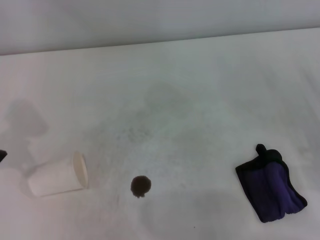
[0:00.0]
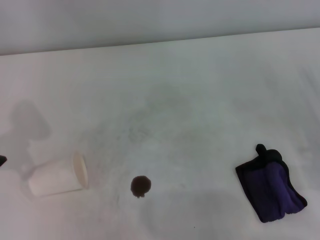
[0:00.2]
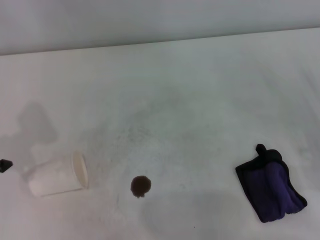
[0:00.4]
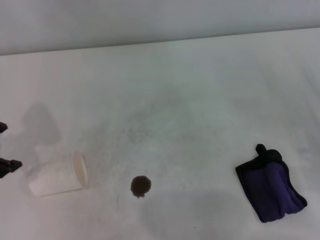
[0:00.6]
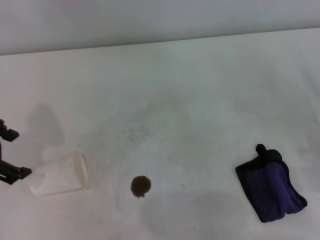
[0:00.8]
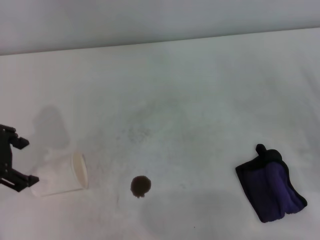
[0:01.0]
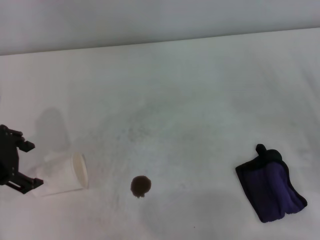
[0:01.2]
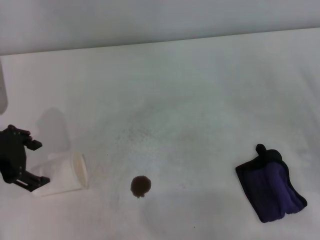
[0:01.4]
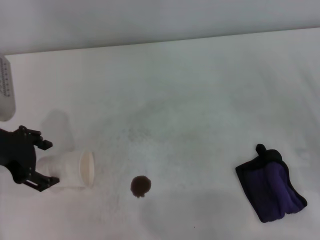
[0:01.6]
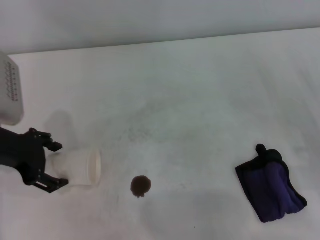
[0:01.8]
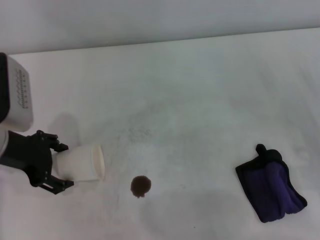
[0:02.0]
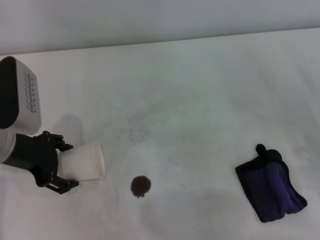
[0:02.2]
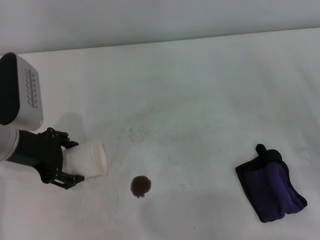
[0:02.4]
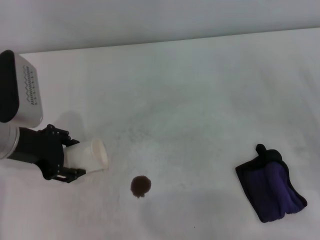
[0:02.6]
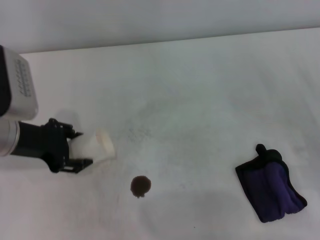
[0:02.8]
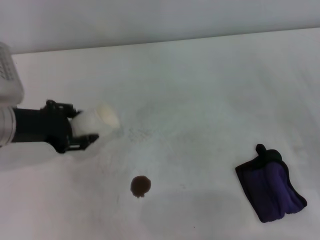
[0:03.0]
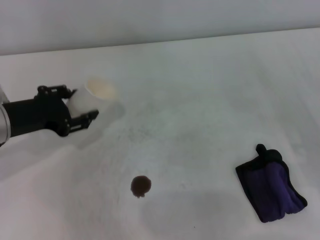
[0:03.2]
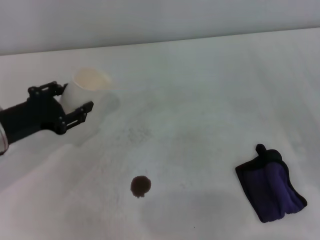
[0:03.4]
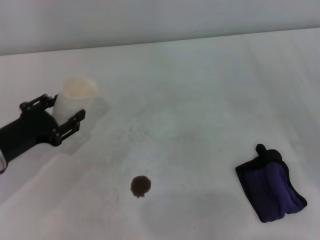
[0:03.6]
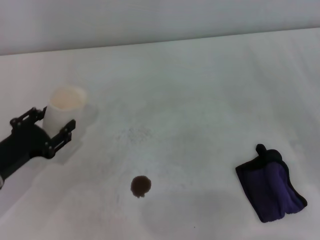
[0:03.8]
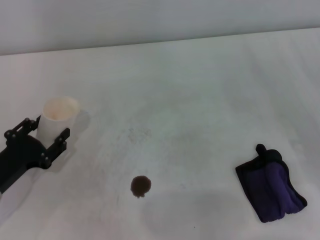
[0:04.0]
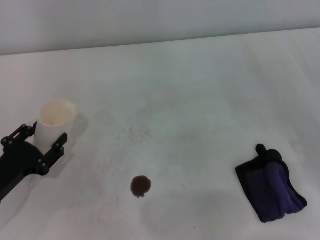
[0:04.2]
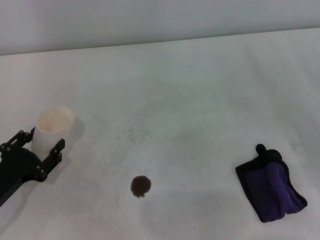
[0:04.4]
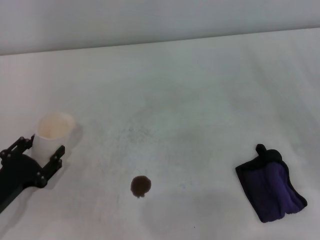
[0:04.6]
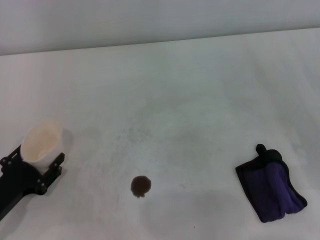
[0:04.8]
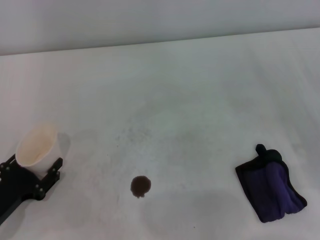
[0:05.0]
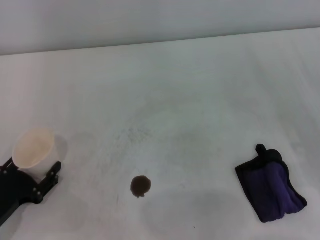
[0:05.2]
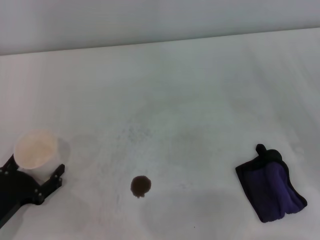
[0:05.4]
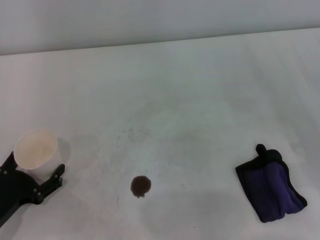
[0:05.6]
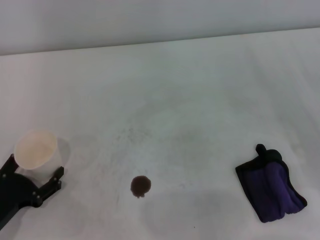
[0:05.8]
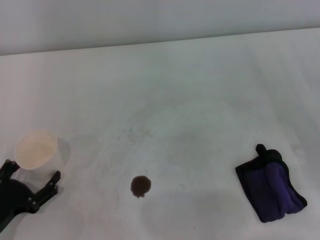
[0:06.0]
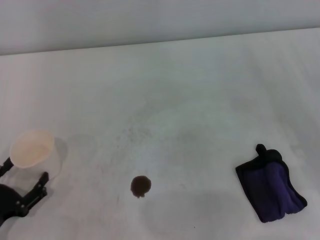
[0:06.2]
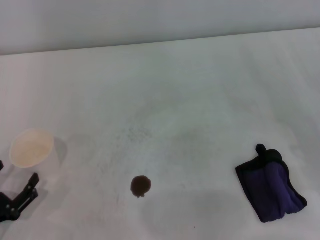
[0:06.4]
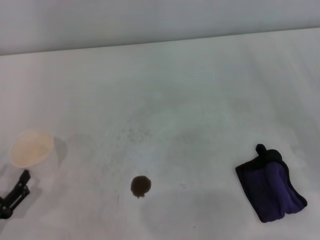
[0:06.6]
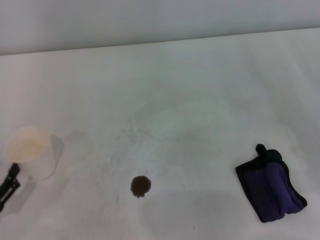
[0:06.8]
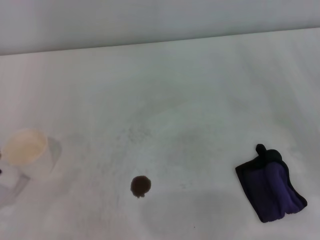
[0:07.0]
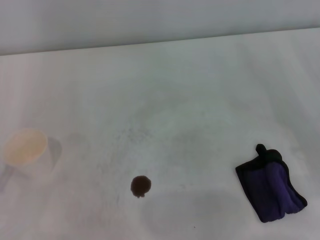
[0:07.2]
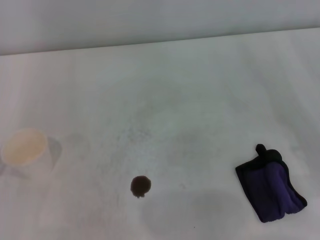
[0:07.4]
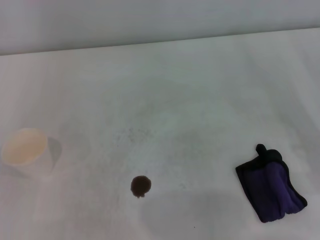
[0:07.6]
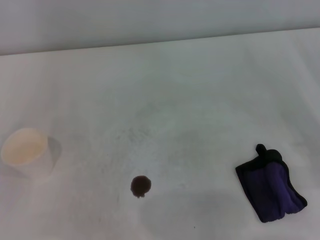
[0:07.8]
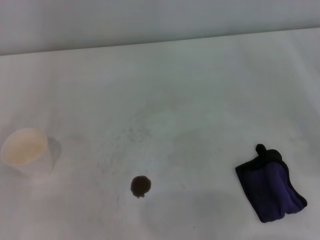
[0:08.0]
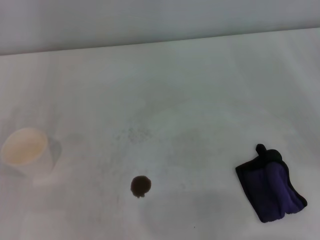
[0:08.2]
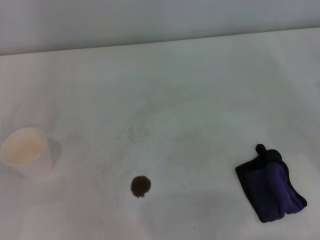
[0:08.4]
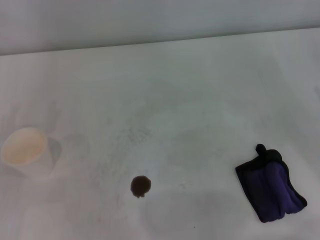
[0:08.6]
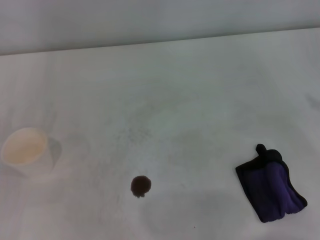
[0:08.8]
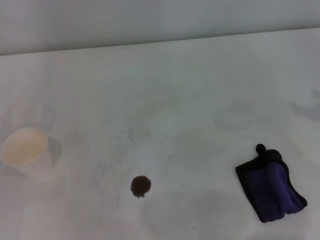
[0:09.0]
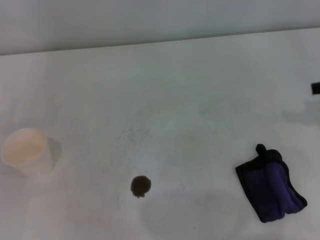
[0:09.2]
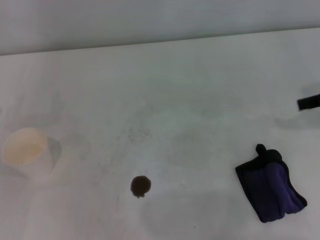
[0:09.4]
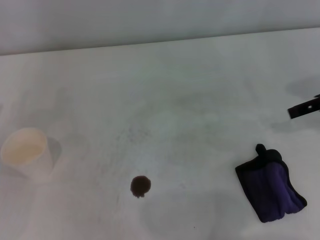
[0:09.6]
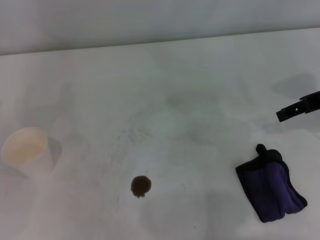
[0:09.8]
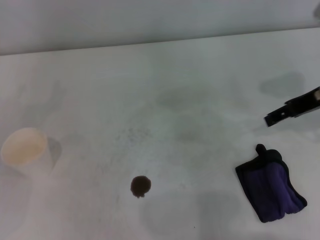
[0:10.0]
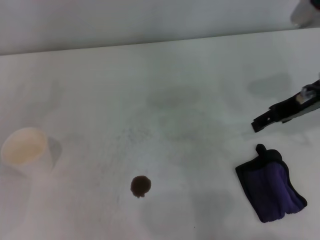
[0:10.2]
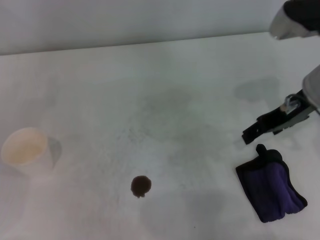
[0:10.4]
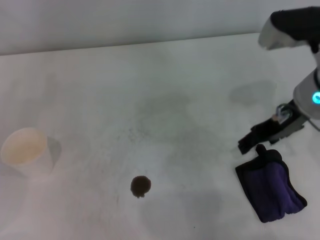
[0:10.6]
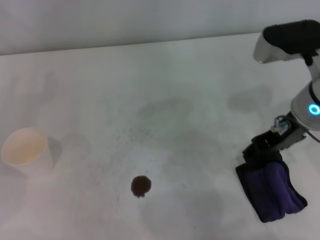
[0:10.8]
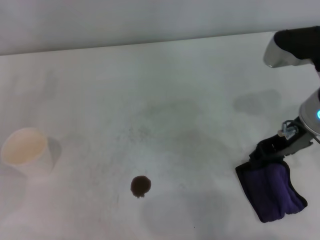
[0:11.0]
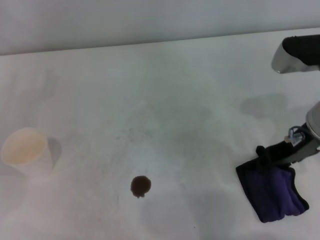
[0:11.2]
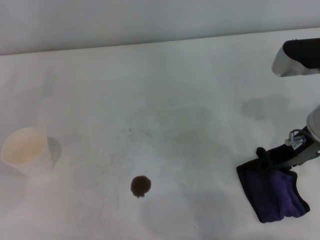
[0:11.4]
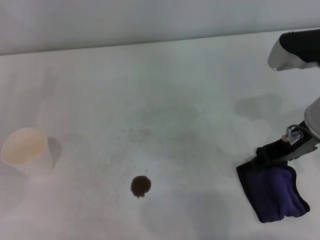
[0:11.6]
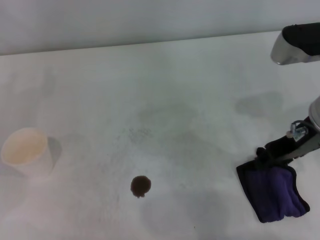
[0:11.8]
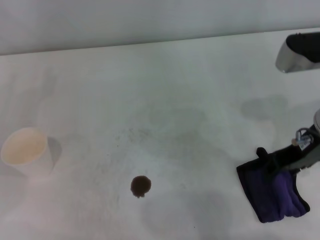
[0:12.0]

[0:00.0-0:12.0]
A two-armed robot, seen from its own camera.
Step, 0:00.0 to 0:02.4: Grasp the paper cup with the left gripper.
Step, 0:02.8 to 0:05.8: Stand the paper cup upright with the left gripper.
Step, 0:06.0 to 0:11.2: Grasp the rag with the right gripper.
0:00.0 to 0:01.6: The left gripper goes some 10 cm downward.
0:01.6 to 0:03.0: The left gripper closes.
0:03.0 to 0:04.4: The left gripper shifts some 15 cm downward and backward.
0:04.4 to 0:06.0: The left gripper moves roughly 5 cm, and opens up.
0:06.0 to 0:07.6: The left gripper is displaced upward and to the left by about 10 cm.
0:09.0 to 0:10.4: The right gripper shifts some 15 cm to the left.
0:10.4 to 0:12.0: There are only small adjustments of the grippers.

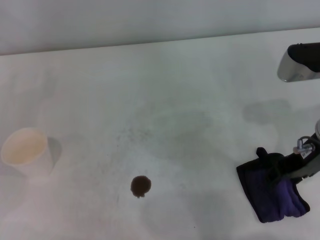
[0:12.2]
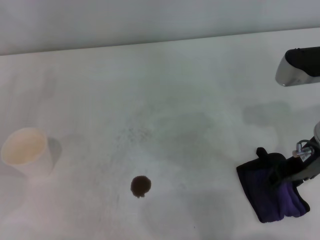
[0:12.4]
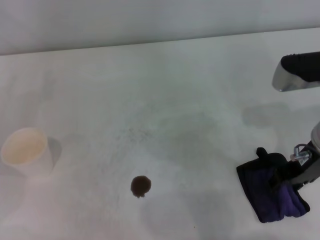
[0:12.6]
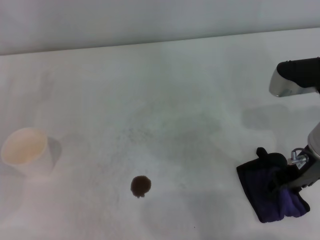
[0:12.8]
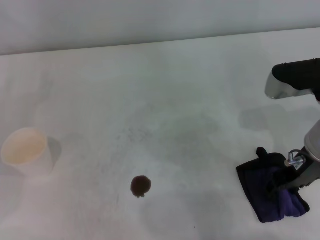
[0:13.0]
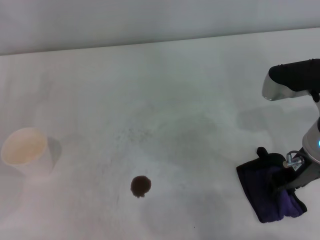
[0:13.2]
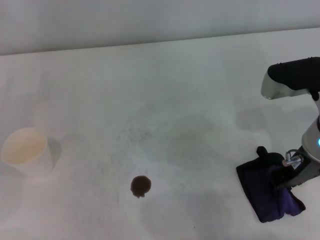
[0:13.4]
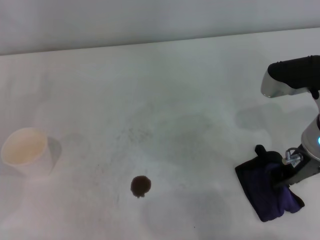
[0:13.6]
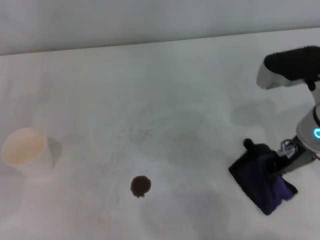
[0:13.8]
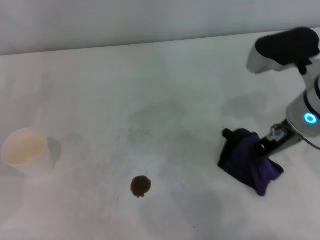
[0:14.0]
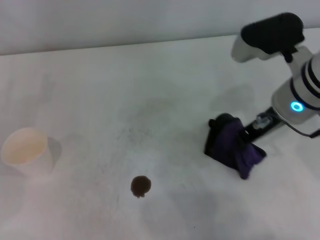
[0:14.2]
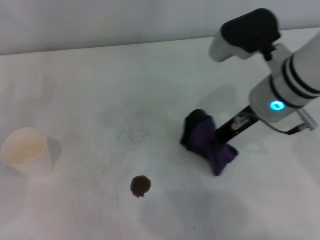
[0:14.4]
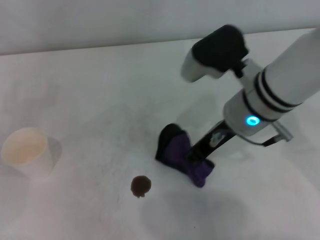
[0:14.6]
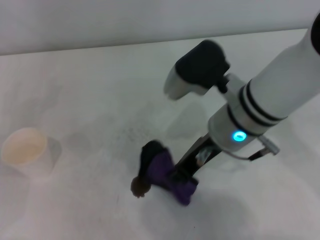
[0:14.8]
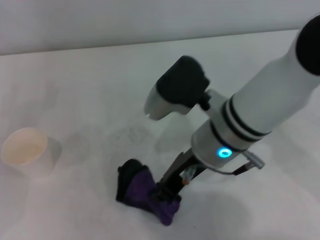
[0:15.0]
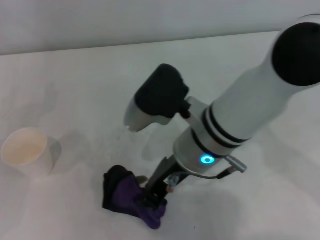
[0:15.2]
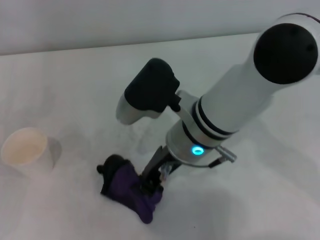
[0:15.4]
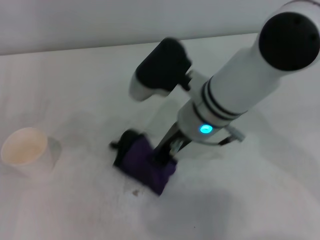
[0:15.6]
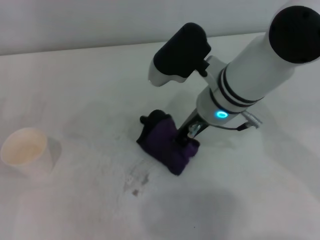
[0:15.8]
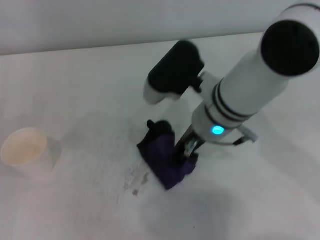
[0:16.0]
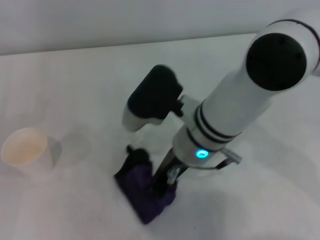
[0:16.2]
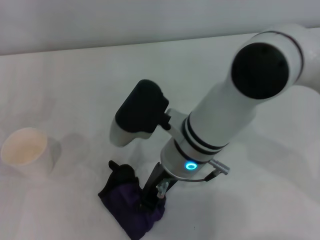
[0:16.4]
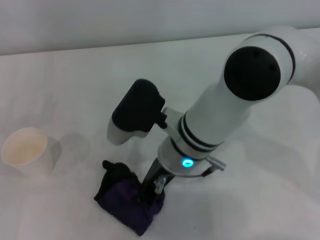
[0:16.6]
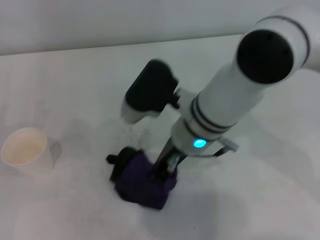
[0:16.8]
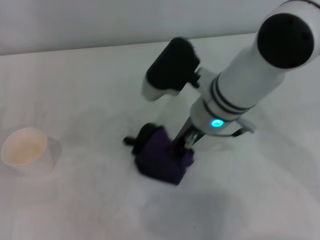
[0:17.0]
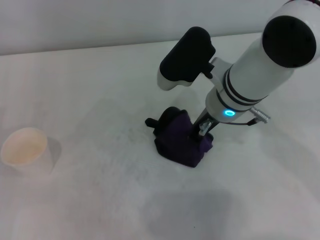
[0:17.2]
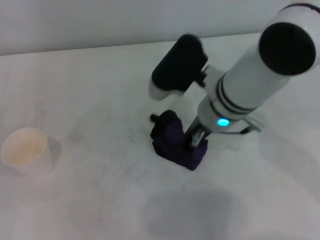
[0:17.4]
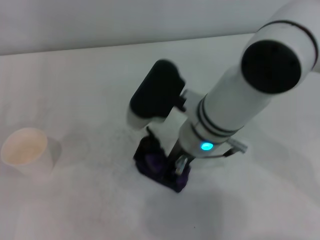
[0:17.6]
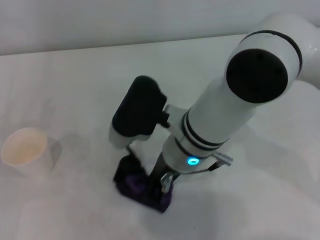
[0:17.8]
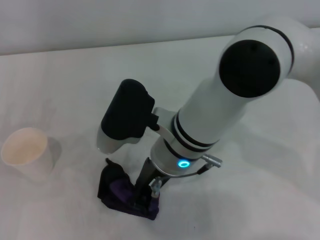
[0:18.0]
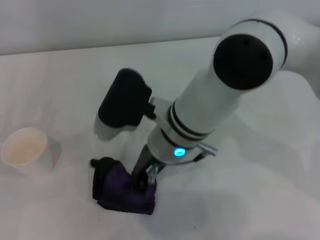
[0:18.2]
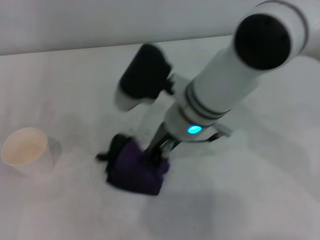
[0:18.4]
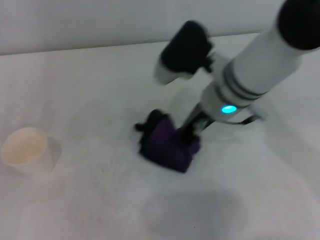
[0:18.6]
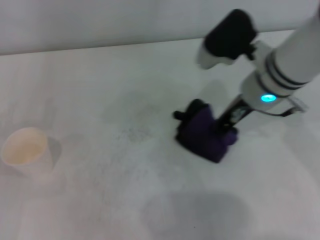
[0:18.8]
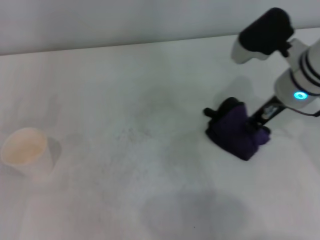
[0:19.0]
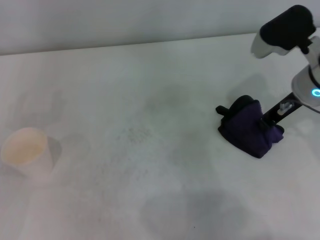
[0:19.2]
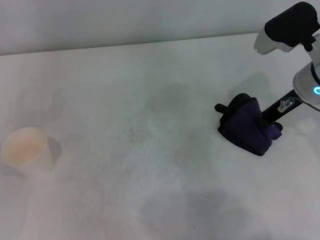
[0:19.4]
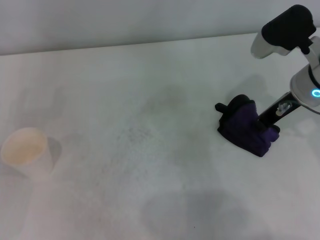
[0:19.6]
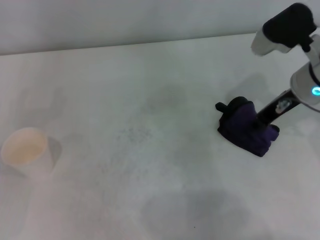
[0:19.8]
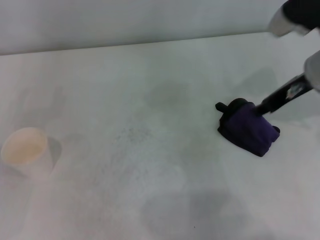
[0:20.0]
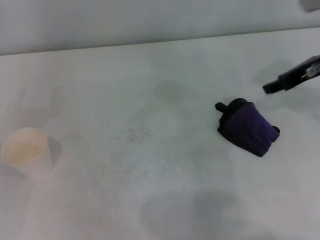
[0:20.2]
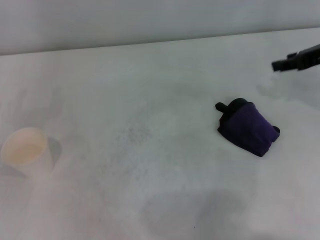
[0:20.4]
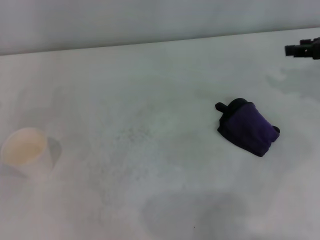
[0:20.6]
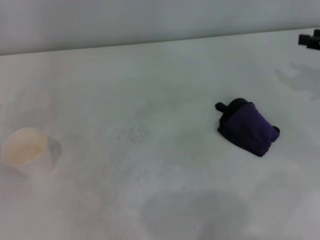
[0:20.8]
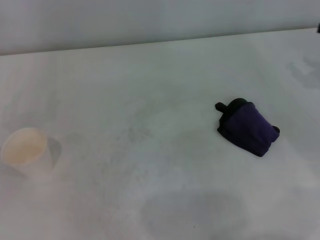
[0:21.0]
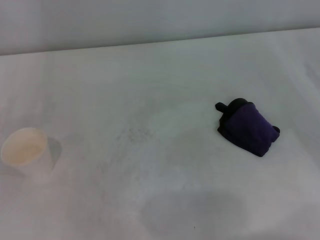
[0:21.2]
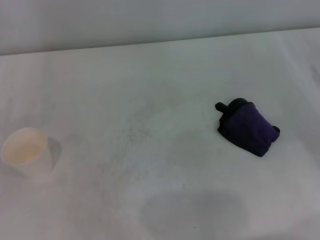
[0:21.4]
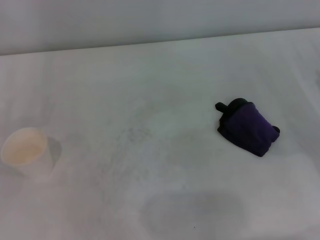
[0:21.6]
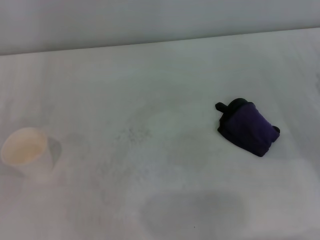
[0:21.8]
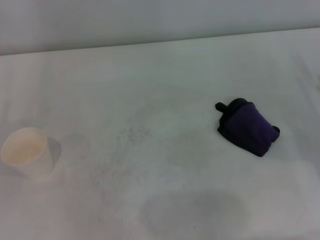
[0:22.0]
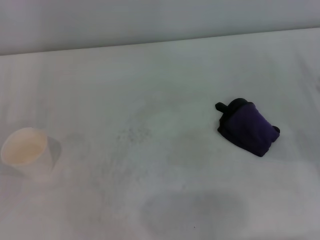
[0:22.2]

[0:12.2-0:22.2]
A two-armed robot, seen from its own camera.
Step, 0:12.2 to 0:18.8: Wipe the stains off the table with the right gripper.
Step, 0:19.2 to 0:19.6: Place the rag on the table with the right gripper.
0:12.2 to 0:13.6: The right gripper closes.
0:13.6 to 0:15.0: The right gripper is displaced to the left by some 15 cm.
0:15.0 to 0:16.4: The right gripper ends up roughly 5 cm from where it was.
0:16.4 to 0:18.0: The right gripper moves about 5 cm to the right and comes back.
0:18.0 to 0:19.4: The right gripper moves to the right, approximately 20 cm.
0:19.4 to 0:20.8: The right gripper heads to the right, covering approximately 15 cm, and opens.
